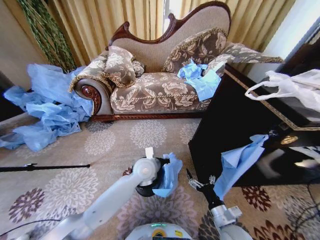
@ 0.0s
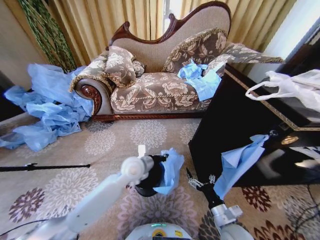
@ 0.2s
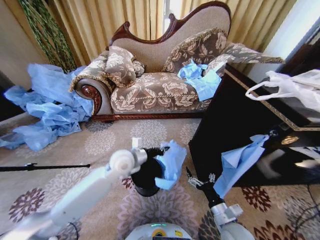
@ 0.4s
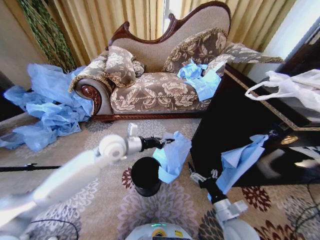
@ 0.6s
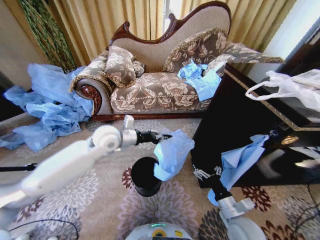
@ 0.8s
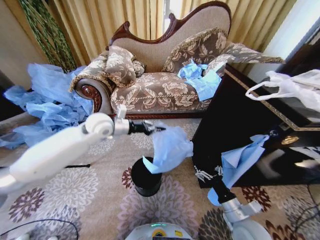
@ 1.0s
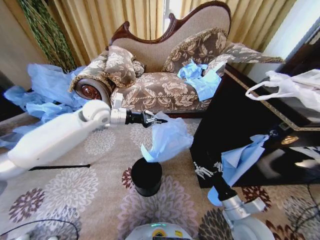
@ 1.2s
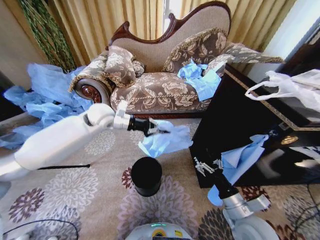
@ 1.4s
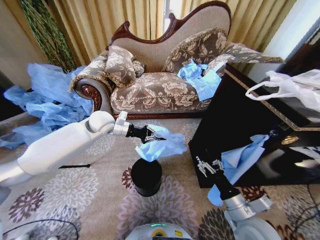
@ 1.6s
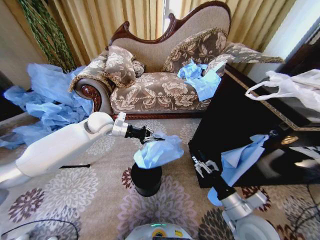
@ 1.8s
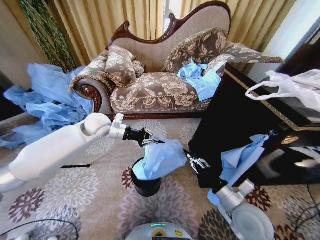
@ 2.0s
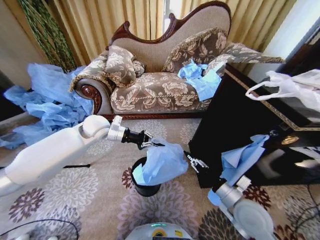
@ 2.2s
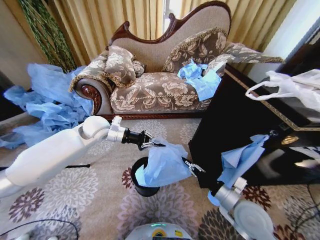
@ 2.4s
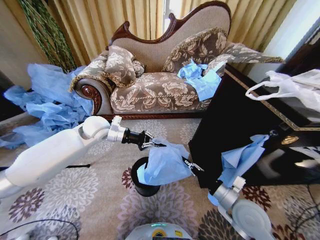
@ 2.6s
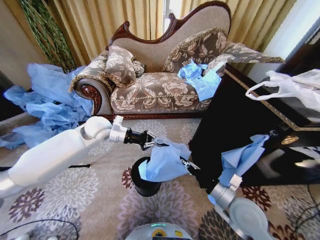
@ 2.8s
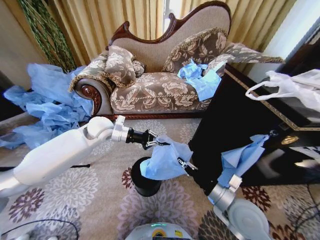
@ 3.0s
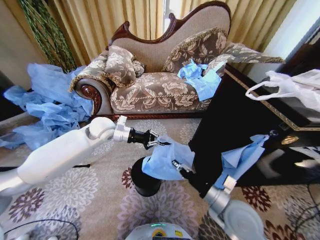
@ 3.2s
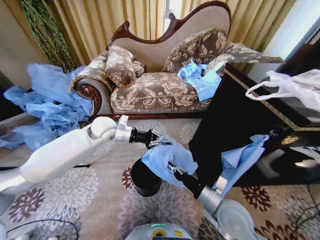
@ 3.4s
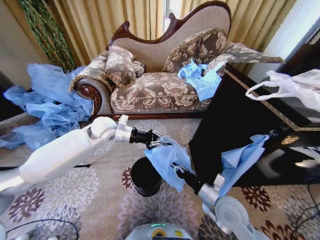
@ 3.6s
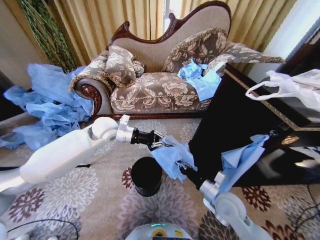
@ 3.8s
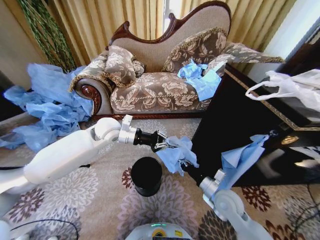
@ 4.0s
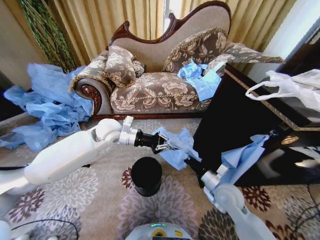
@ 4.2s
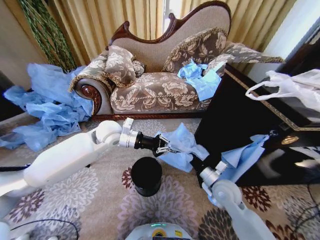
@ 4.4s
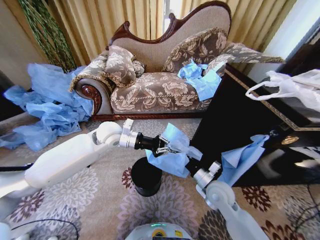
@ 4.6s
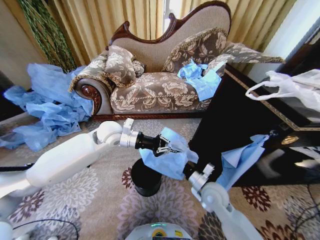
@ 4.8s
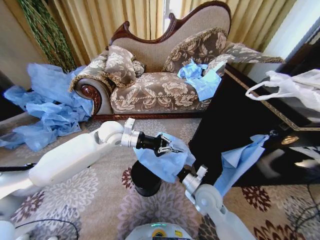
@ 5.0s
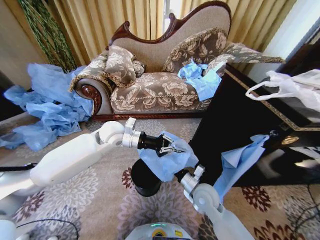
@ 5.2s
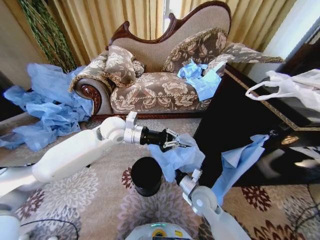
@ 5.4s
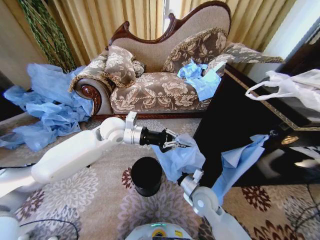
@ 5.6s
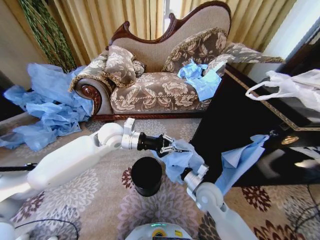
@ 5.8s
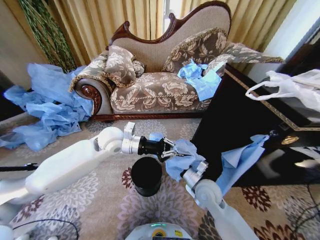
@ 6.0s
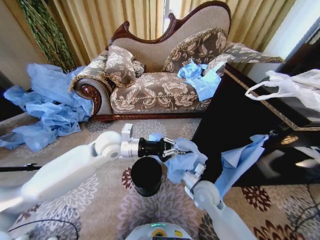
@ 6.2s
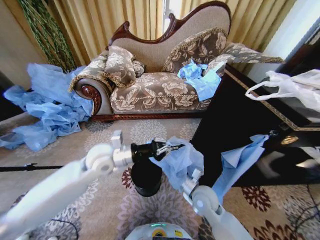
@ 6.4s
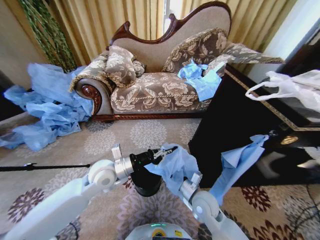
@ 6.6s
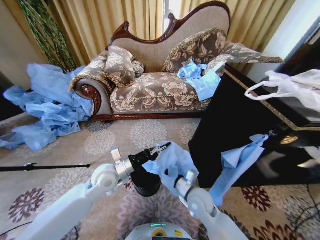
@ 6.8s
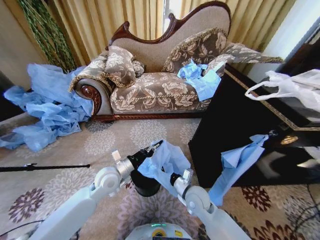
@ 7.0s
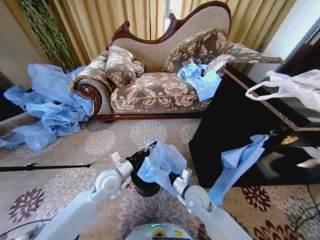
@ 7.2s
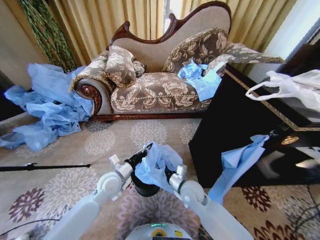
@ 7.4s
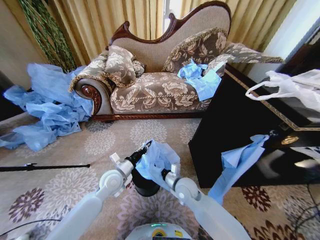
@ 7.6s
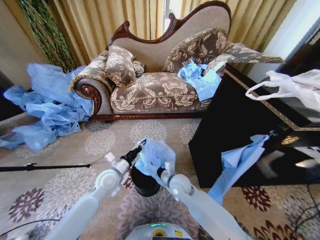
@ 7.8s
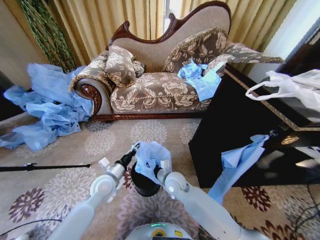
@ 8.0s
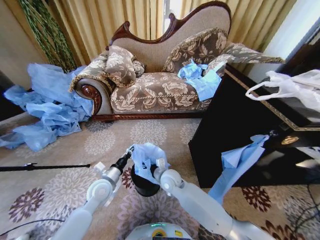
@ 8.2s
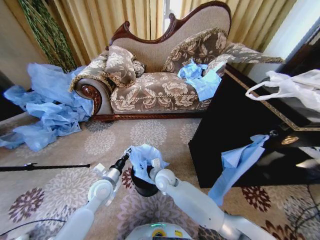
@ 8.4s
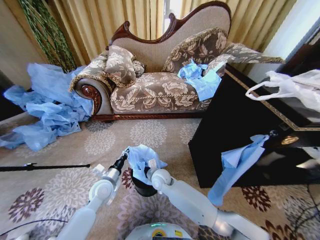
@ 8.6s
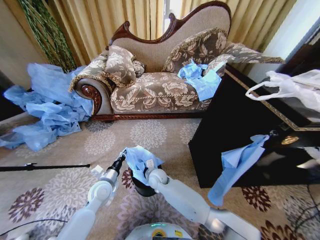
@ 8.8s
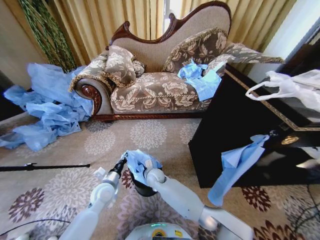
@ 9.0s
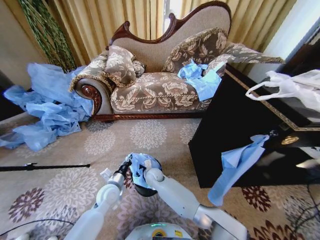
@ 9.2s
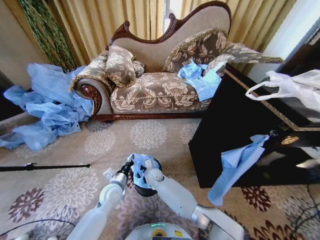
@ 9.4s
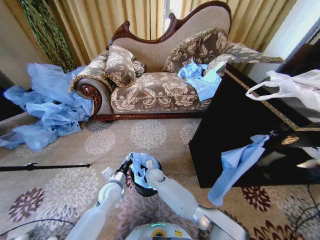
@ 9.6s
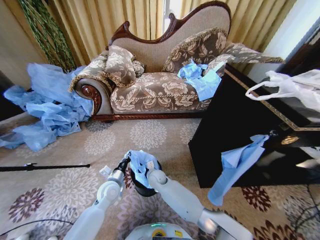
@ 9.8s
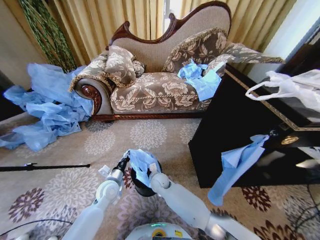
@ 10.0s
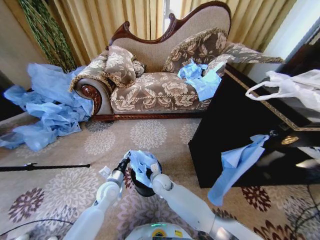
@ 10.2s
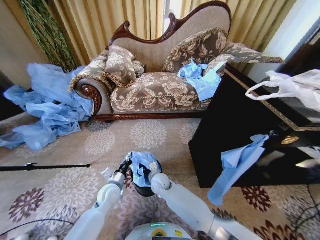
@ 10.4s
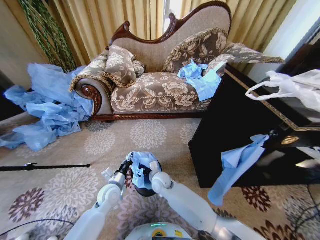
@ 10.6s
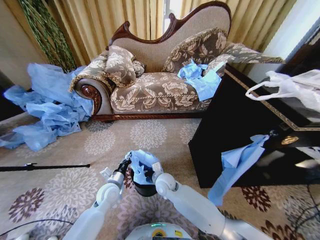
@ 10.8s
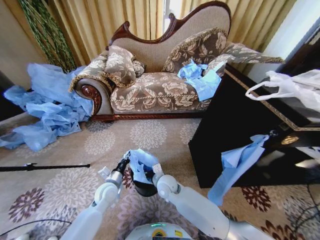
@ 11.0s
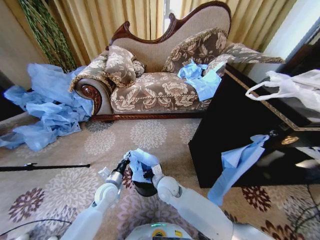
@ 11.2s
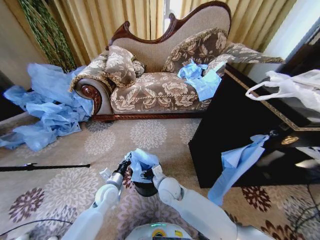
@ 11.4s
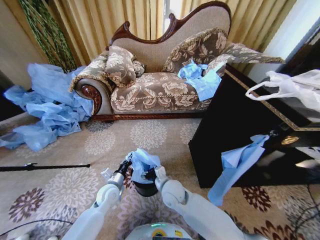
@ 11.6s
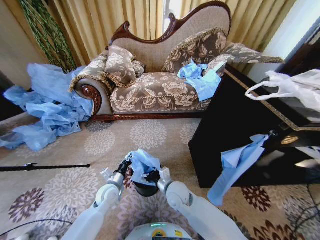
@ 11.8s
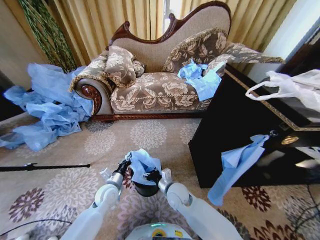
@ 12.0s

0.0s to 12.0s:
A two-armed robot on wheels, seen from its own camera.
Task of the whole recording: Place a garbage bag over the trash bin.
0.0s to 1.6s: The right gripper is displaced upward by approximately 10 cm; the left gripper goes approximately 25 cm to the left, upward and forward.
1.6s to 3.0s: The right gripper shifts by roughly 5 cm, and closes up.
3.0s to 4.4s: The right gripper moves forward, some 10 cm; the left gripper changes place by roughly 5 cm.
4.4s to 6.0s: The right gripper moves to the left, approximately 5 cm.
6.0s to 7.6s: The left gripper heads downward, covering roughly 20 cm. Meanwhile the right gripper shifts some 10 cm to the left.
7.6s to 9.0s: The right gripper is displaced to the left, forward and downward by about 15 cm; the left gripper is displaced downward by approximately 5 cm.
9.0s to 10.4s: The right gripper opens its fingers.
10.4s to 12.0s: The right gripper moves to the right and backward, about 10 cm.

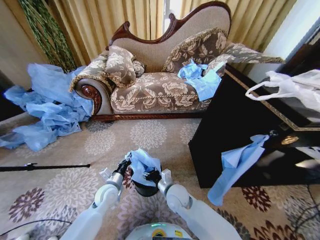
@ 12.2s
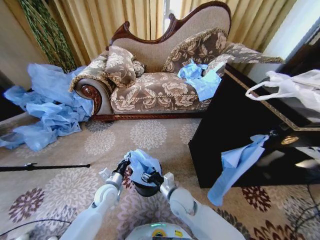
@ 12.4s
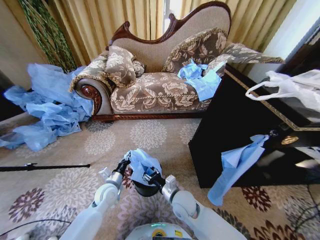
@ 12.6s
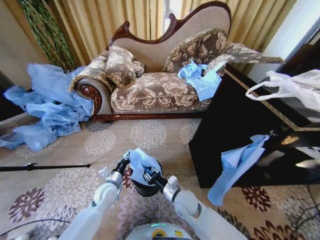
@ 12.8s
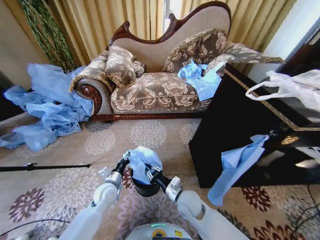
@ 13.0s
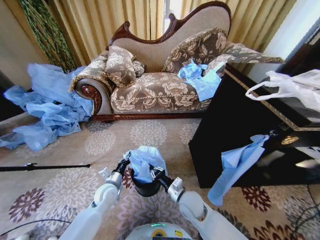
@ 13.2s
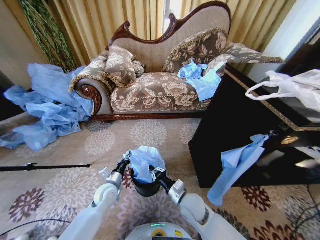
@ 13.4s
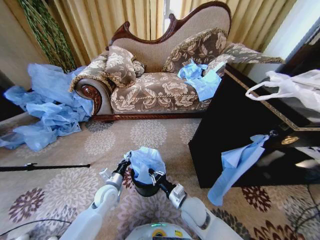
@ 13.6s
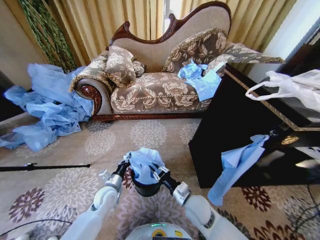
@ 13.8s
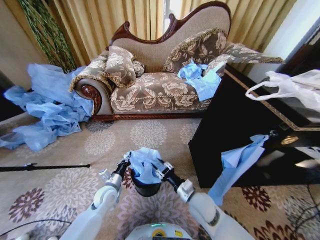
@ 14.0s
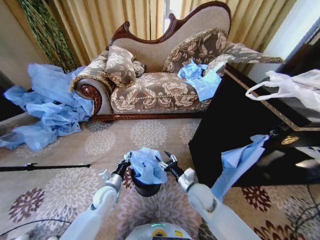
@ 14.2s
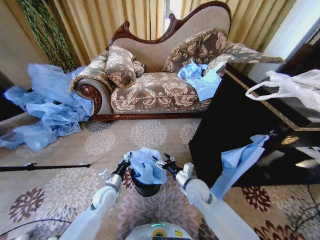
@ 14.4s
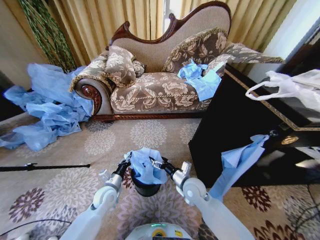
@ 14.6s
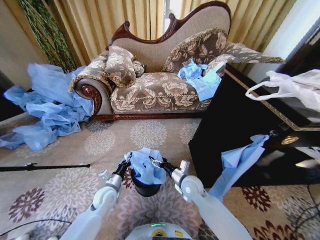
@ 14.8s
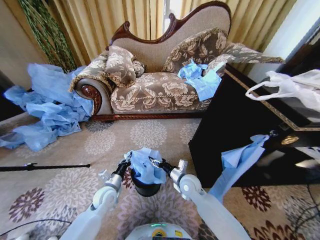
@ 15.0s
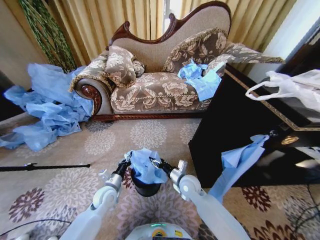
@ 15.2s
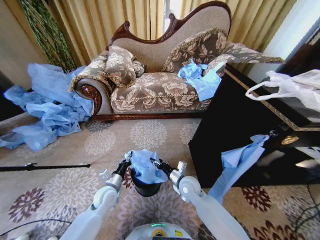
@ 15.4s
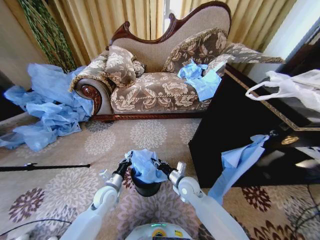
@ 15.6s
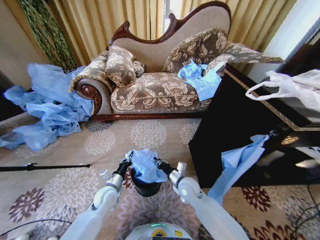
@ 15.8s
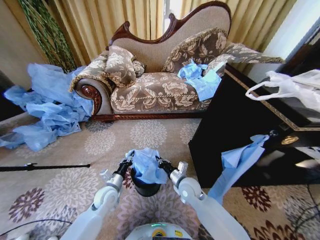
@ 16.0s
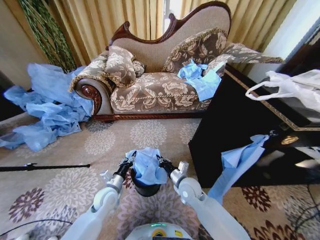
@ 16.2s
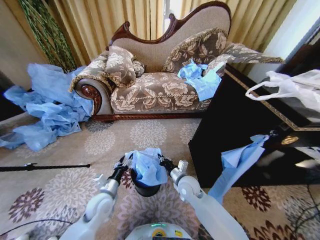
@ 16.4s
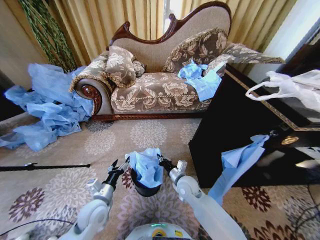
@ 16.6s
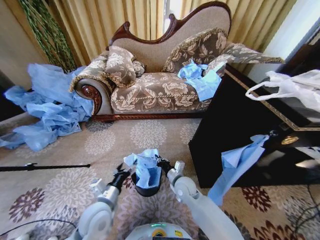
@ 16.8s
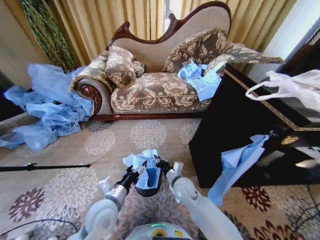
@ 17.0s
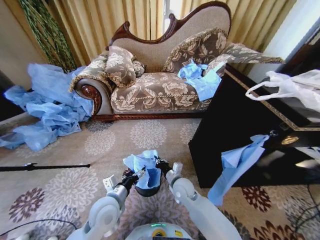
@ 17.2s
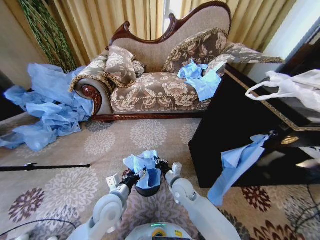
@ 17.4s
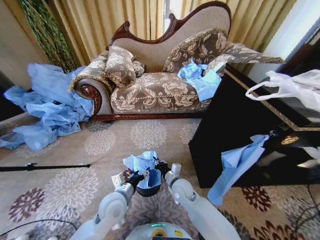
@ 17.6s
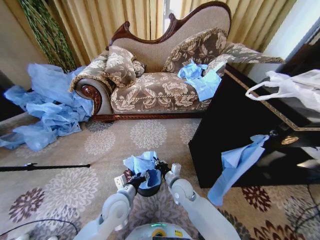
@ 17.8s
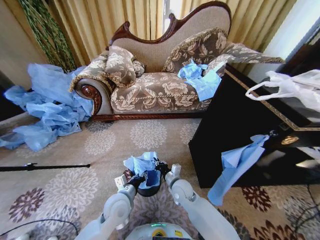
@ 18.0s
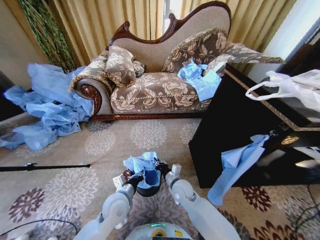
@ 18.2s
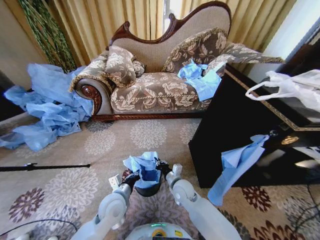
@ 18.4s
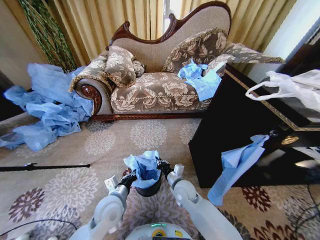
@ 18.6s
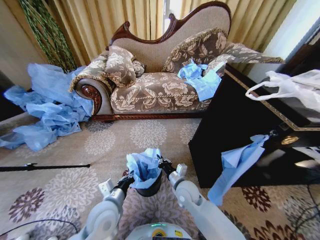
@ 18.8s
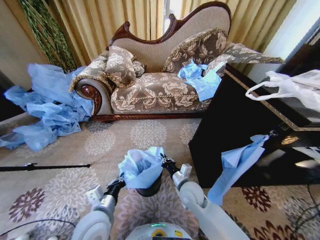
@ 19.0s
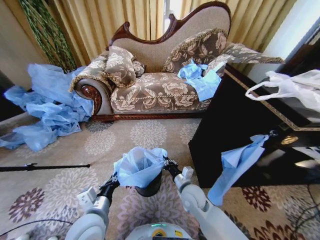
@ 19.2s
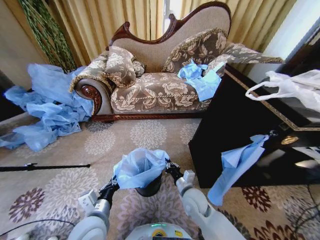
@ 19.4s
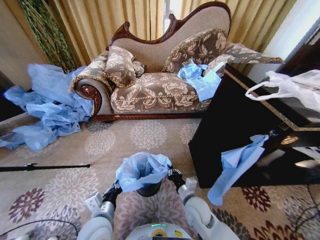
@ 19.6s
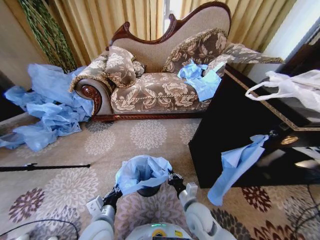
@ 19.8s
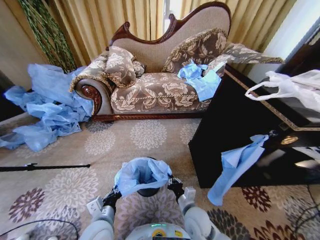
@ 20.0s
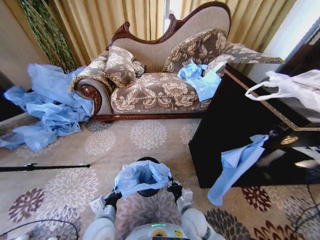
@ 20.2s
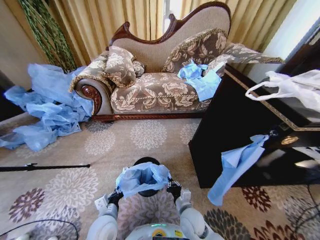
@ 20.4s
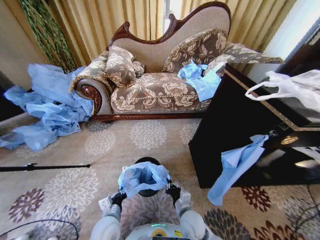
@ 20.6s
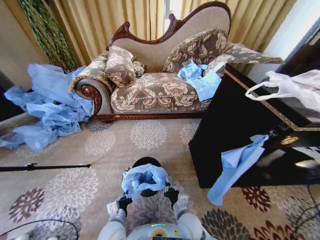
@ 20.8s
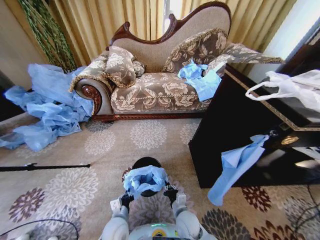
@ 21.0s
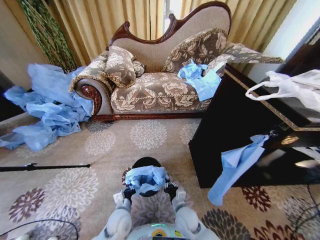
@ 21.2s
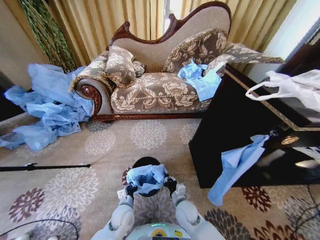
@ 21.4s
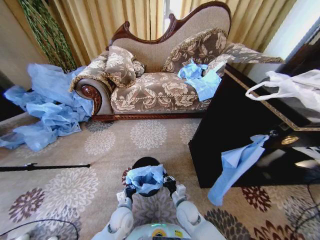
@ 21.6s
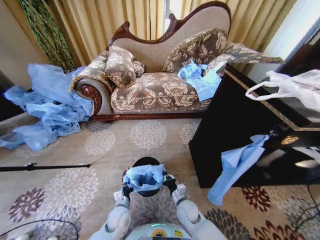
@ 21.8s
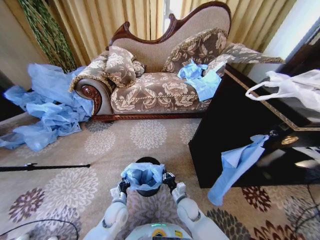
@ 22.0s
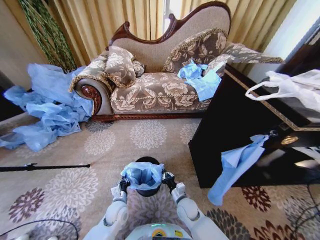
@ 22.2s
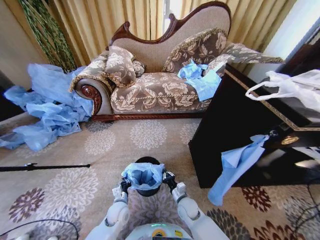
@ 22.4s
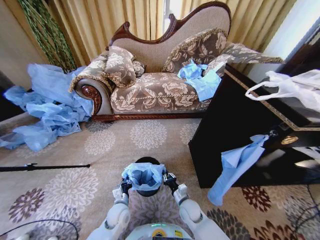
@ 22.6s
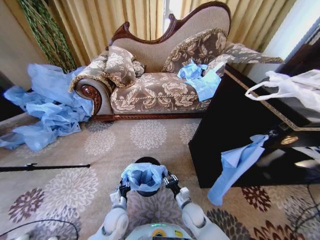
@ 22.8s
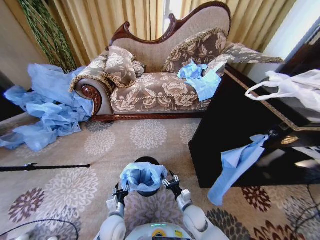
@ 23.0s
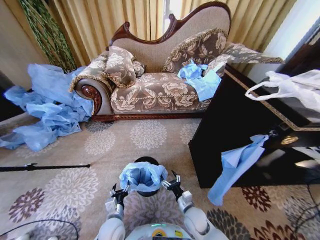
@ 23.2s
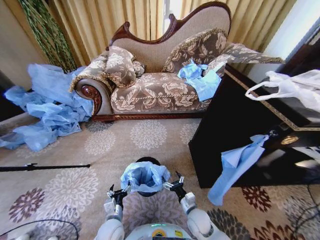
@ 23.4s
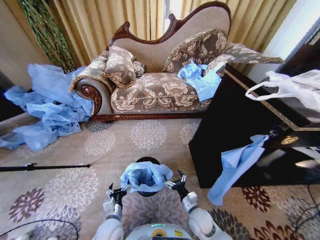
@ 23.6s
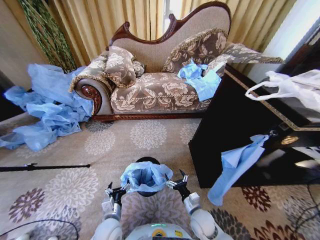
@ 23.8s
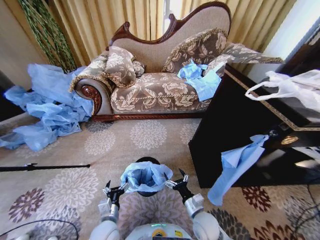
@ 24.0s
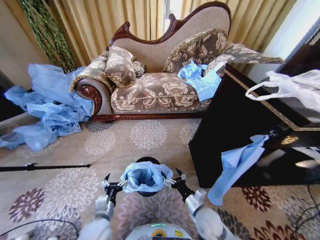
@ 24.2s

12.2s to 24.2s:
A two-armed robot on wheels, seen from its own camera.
Task of the whole recording: Place a garbage bag over the trash bin.
12.2s to 13.8s: The right gripper goes roughly 5 cm to the right, and closes up.
13.8s to 15.2s: The right gripper goes some 10 cm forward, and opens its fingers.
15.2s to 16.6s: The left gripper is displaced backward by roughly 5 cm, and opens its fingers. The right gripper closes up.
16.6s to 18.2s: The left gripper goes approximately 10 cm to the right, and closes its fingers.
18.2s to 19.8s: The two grippers go about 10 cm backward.
19.8s to 21.2s: The right gripper shifts about 10 cm downward, while the left gripper goes roughly 15 cm downward and forward.
21.2s to 22.6s: The right gripper ends up about 5 cm from where it was.
22.6s to 24.2s: The two grippers go roughly 10 cm upward and backward. The right gripper opens its fingers. The left gripper opens up.
